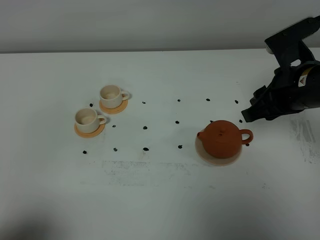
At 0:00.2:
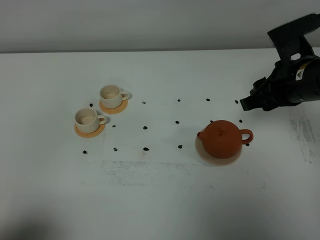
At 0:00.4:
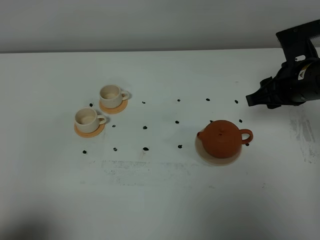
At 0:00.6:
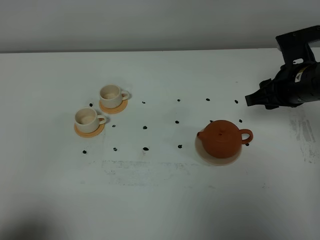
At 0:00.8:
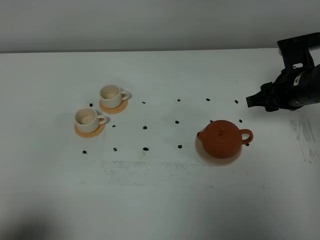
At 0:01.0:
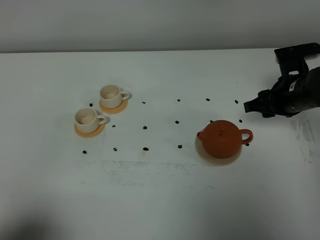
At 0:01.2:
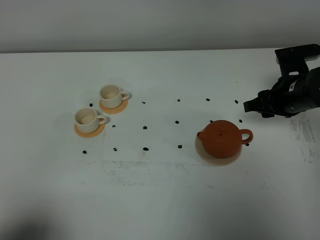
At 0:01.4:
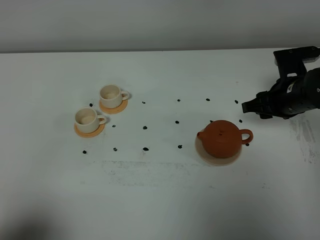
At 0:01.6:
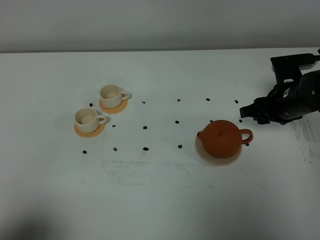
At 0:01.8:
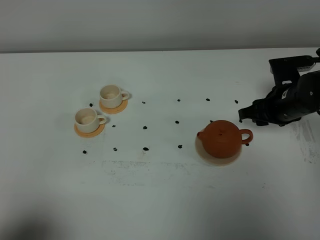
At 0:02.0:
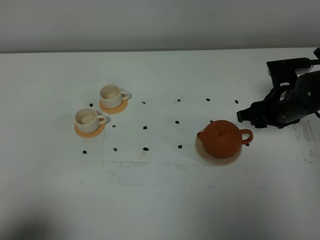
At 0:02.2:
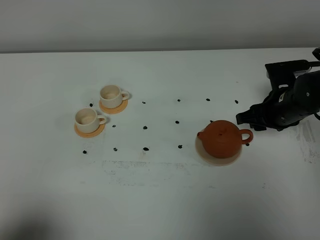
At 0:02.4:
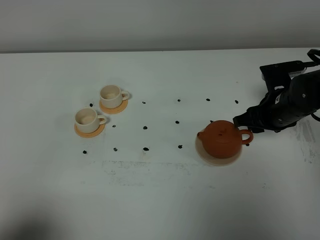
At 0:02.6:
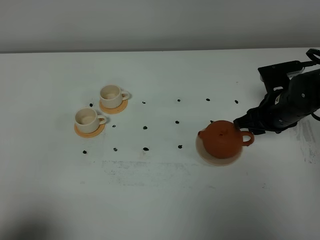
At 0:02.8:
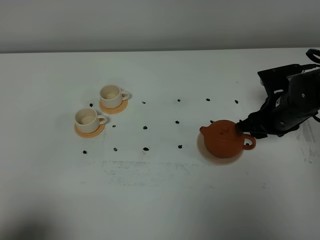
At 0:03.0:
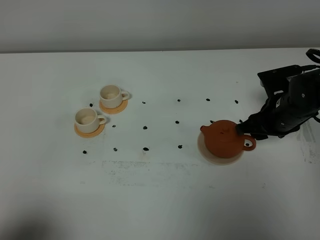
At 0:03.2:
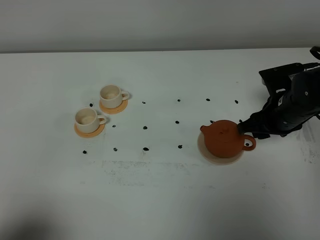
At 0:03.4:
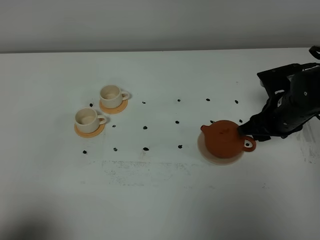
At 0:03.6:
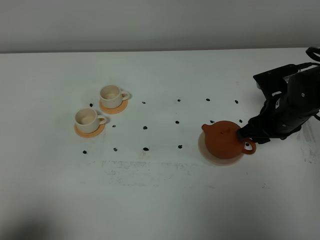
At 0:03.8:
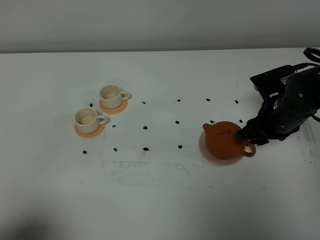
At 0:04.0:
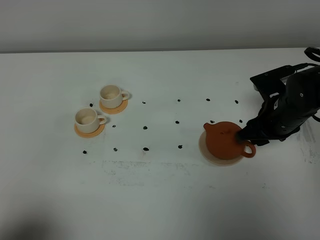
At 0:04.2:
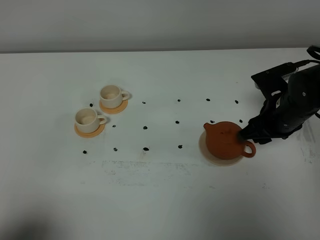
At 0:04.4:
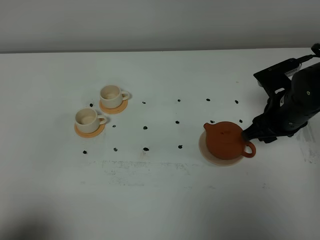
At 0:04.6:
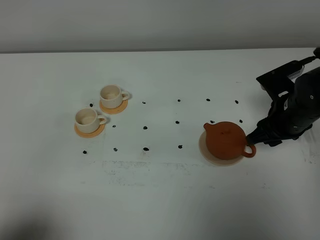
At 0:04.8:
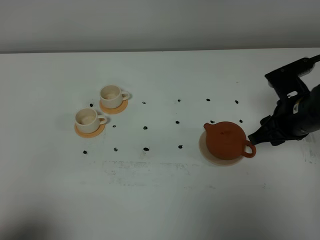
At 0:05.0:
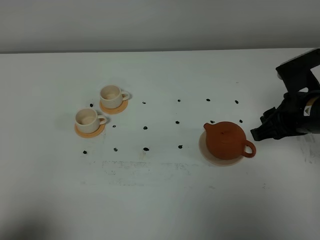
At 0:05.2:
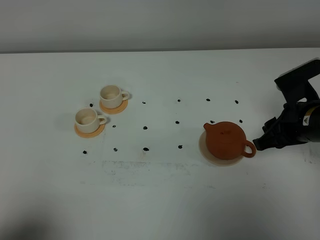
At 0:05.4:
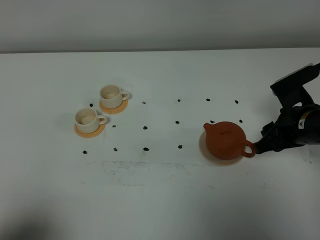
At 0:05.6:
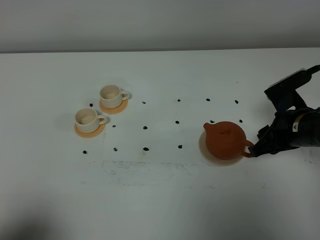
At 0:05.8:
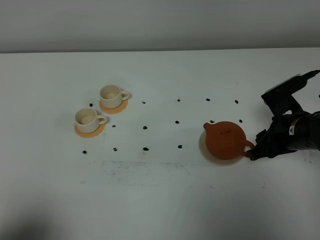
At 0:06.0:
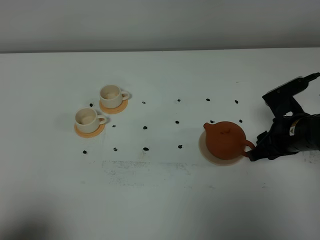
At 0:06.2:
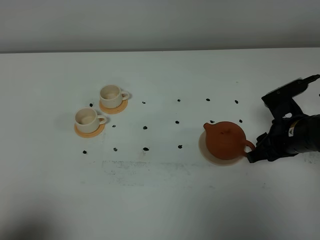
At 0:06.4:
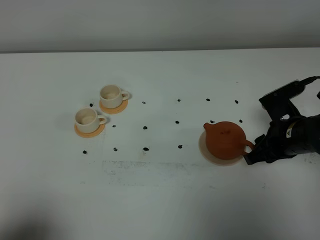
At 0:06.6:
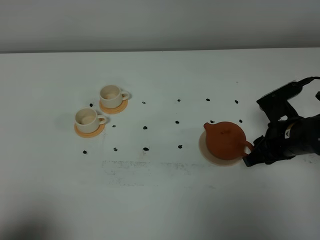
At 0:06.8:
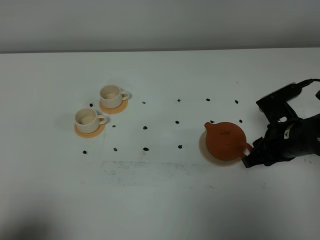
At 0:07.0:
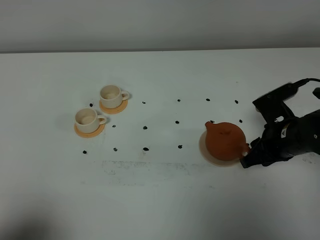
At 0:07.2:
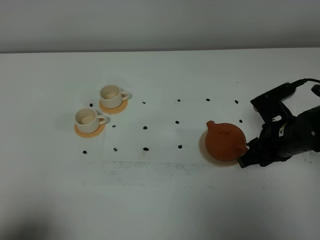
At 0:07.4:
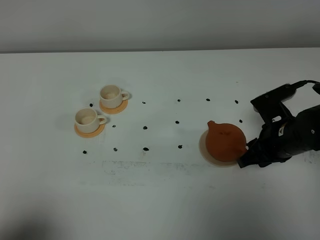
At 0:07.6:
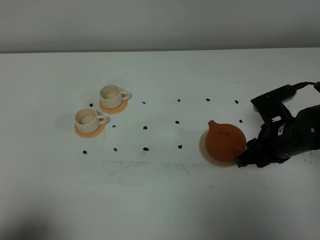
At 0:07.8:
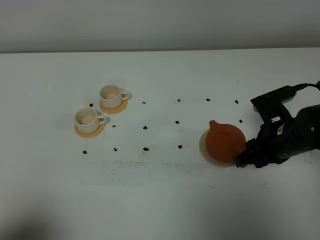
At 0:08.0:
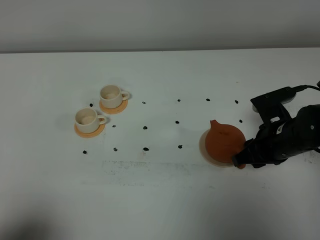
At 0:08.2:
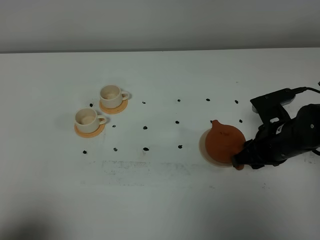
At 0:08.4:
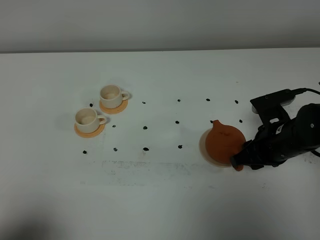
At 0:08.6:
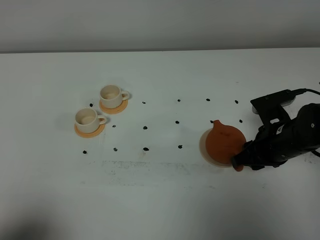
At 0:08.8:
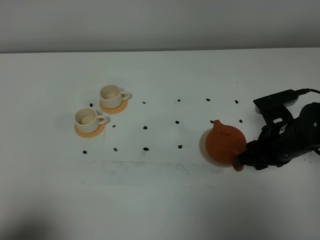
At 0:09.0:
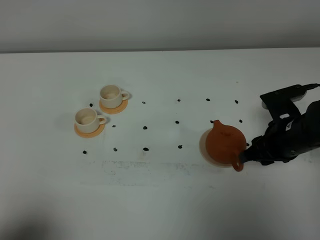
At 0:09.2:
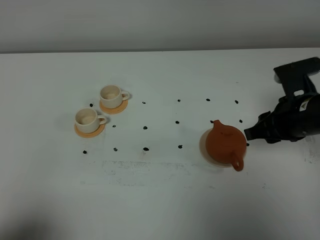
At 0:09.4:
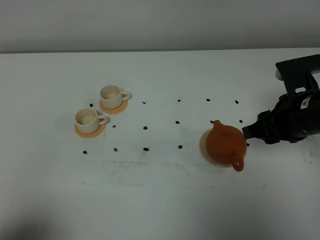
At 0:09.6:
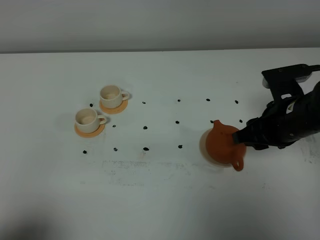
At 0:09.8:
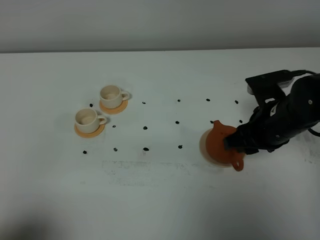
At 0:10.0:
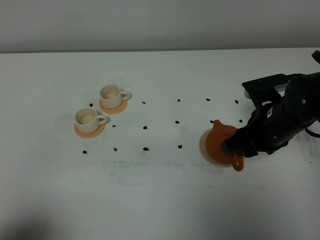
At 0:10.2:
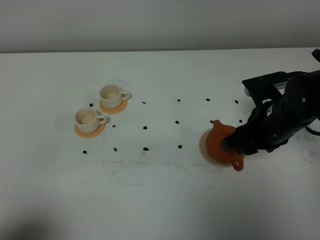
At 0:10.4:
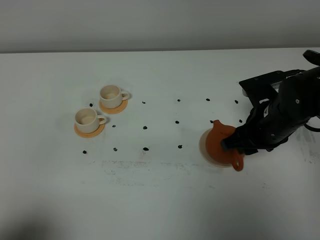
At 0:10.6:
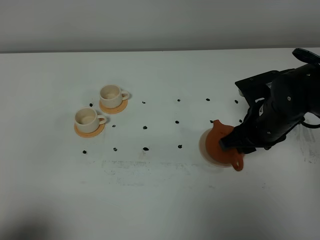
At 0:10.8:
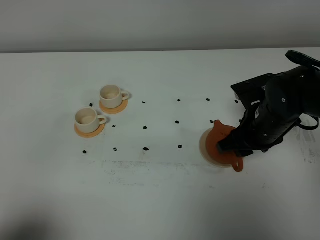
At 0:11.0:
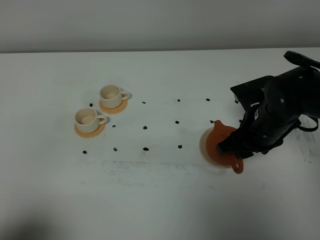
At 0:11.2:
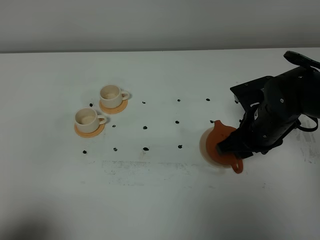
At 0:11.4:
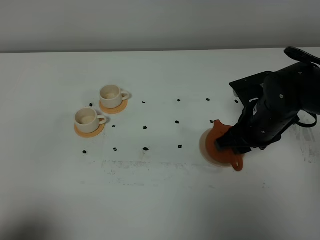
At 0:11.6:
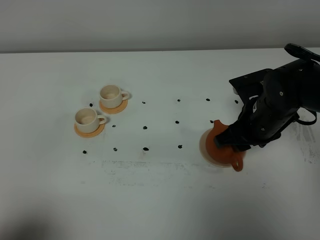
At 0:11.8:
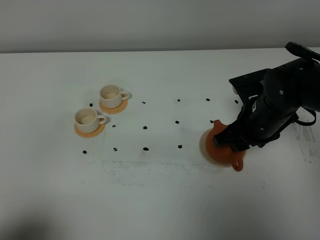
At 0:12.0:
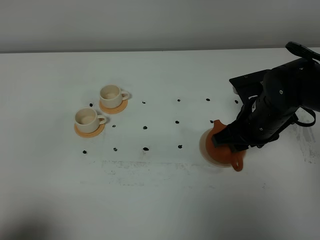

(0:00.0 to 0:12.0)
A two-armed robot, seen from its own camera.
Task of the whole recording: grasp the brown teapot and pour the tea into the two white teacups one by one, put the brown teapot back in its original place.
0:00.0 - 0:01.6: The right gripper is displaced downward and forward by approximately 10 cm.
0:01.6 - 0:04.4: The grippers stay close to where they were, moving slightly.
0:04.4 - 0:06.0: The right gripper shifts by approximately 5 cm.
0:06.0 - 0:09.0: The grippers move only a little.
0:10.4 - 0:12.0: The grippers move only a little.

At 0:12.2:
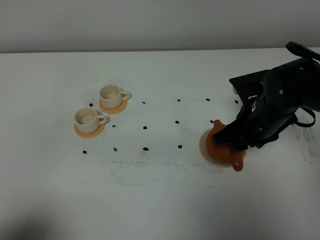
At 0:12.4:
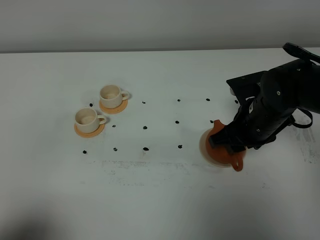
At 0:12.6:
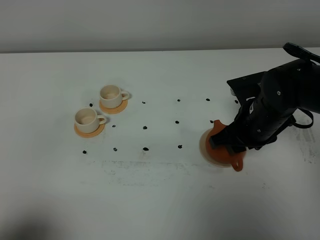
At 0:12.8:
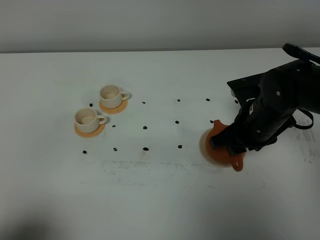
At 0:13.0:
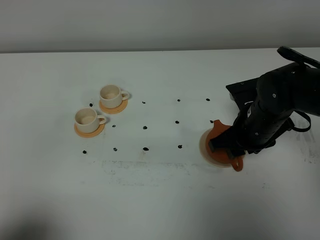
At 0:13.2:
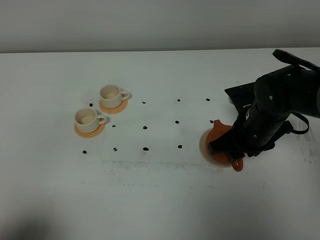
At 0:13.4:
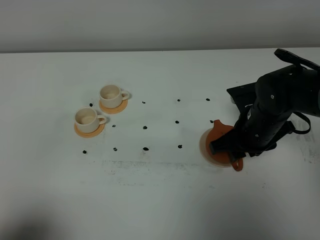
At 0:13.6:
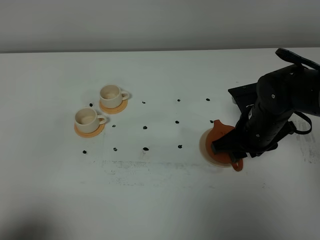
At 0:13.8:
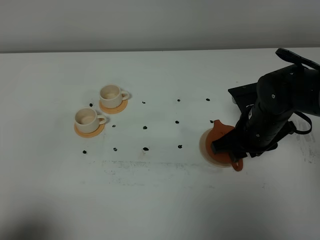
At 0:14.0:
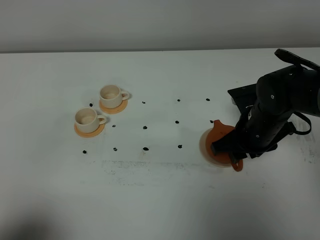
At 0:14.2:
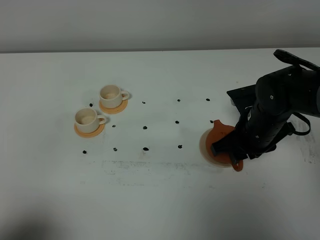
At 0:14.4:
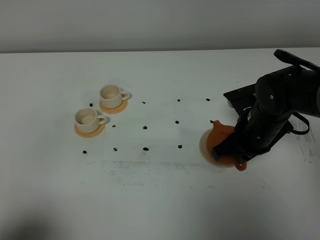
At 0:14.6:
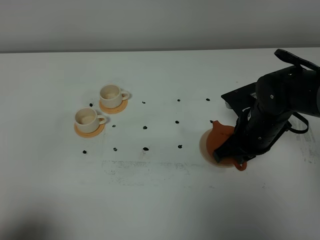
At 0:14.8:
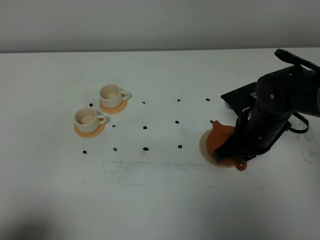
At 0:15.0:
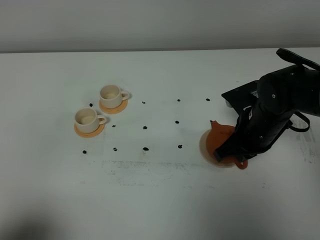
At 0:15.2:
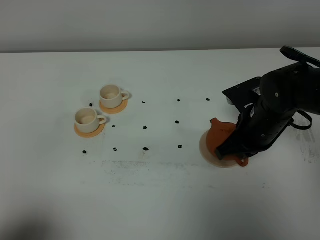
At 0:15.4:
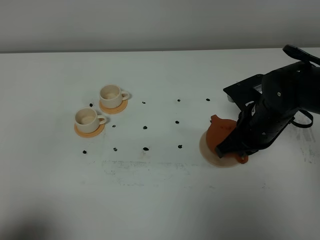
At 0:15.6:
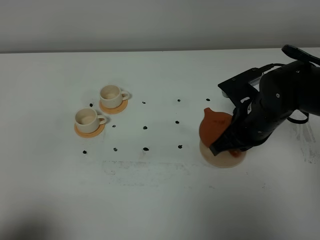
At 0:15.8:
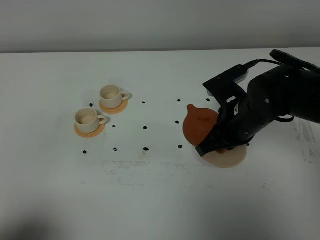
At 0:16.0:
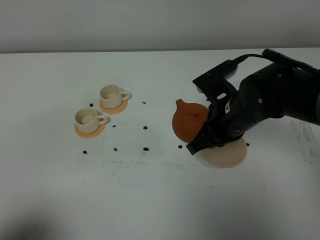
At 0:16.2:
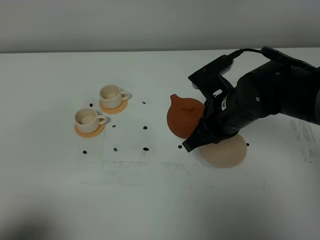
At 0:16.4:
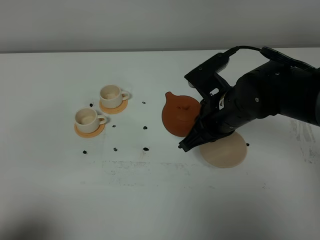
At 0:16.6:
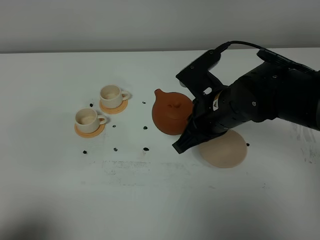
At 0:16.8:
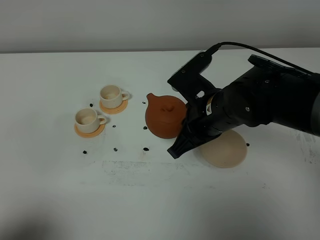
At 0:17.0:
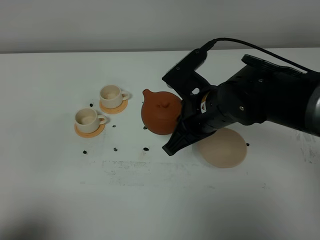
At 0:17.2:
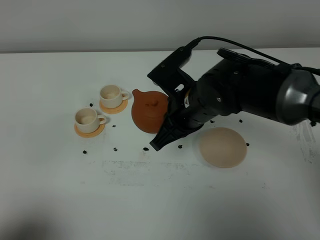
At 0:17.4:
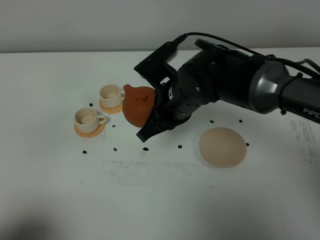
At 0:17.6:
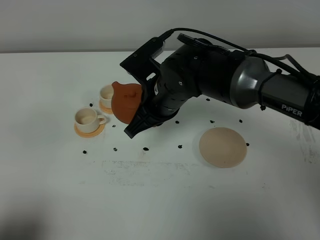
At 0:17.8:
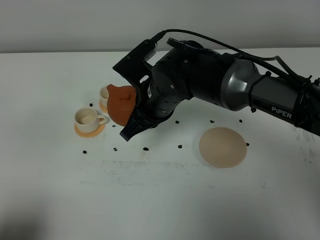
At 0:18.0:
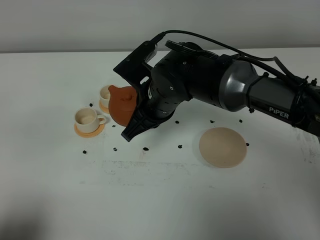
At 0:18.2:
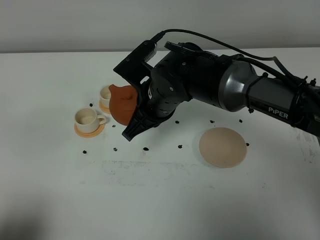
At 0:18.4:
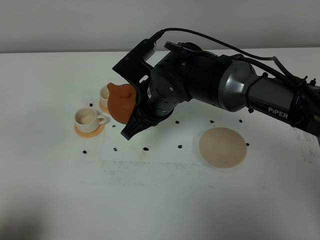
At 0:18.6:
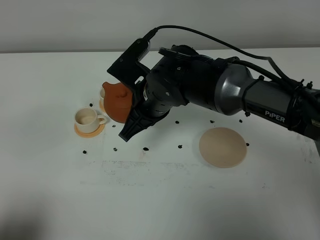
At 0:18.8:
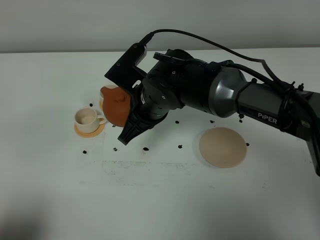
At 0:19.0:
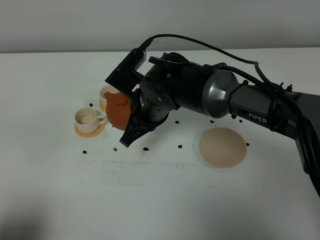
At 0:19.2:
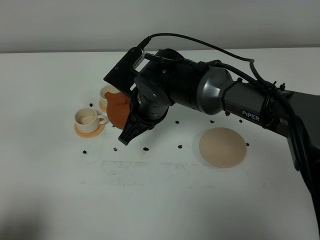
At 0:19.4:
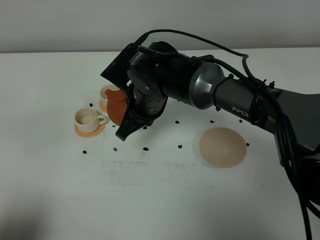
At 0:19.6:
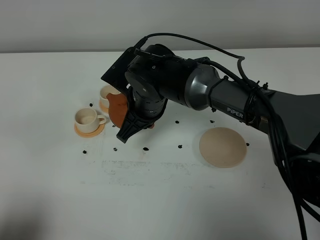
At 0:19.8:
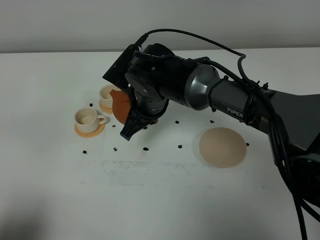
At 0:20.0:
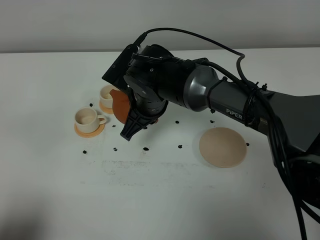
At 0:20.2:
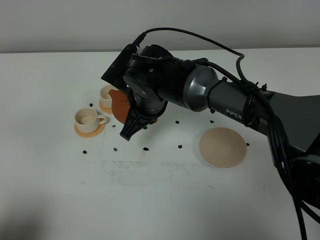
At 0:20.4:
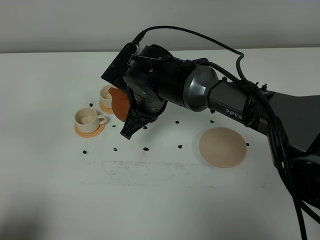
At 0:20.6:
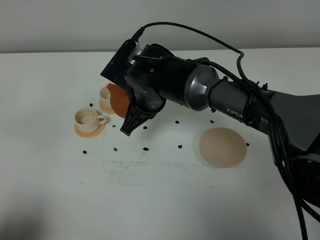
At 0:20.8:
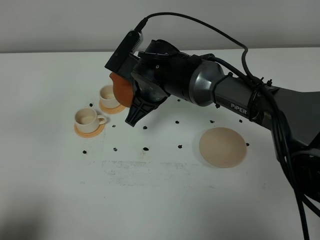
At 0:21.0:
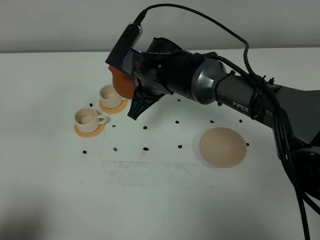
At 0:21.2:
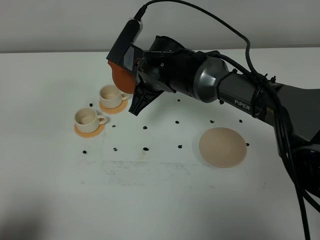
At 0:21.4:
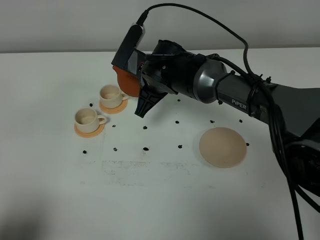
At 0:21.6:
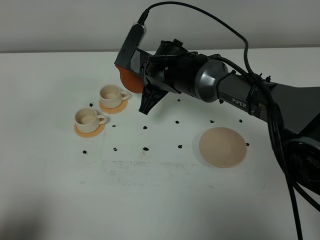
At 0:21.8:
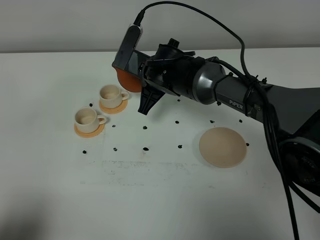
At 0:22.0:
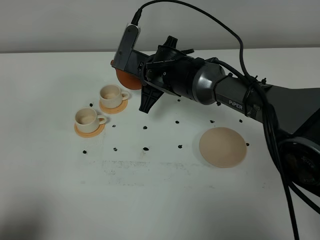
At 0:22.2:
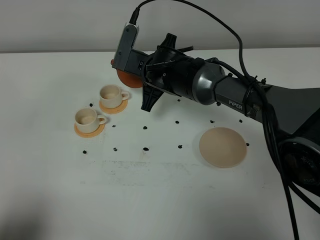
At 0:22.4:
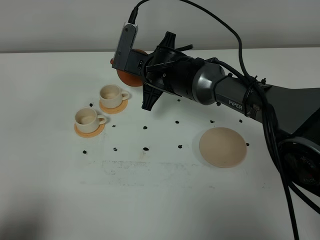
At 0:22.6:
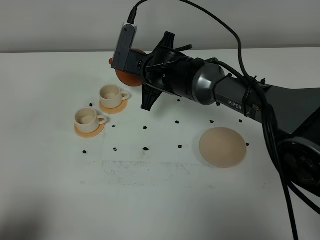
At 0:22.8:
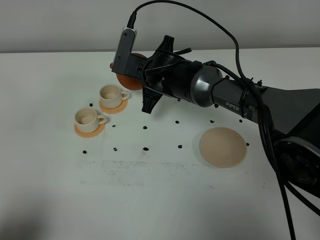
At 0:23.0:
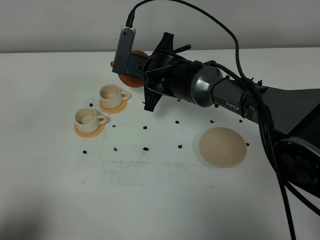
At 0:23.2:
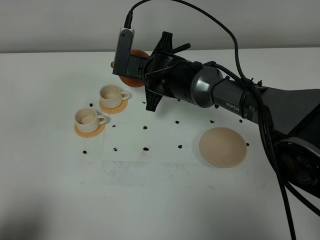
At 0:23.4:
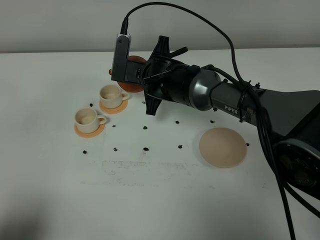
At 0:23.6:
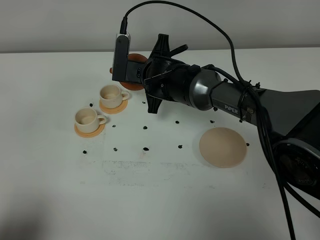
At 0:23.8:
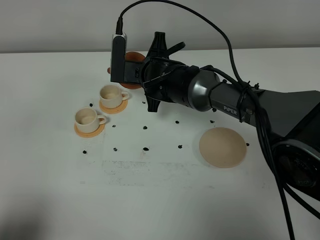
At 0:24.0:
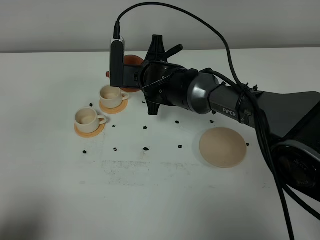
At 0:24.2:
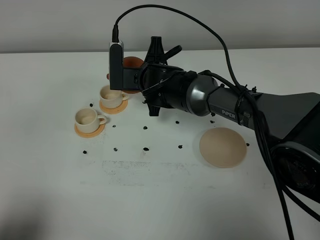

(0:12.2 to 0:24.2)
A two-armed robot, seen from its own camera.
Task of the whole recording: grasp the brown teapot and pour the tea into the two white teacups one by one, put the brown teapot back in its original place.
Step, 0:12.2 - 0:15.4: Pick up the teapot with the right gripper.
0:12.2 - 0:13.8: The grippers stay close to where they were, moving slightly.
0:13.8 - 0:15.2: The right gripper closes.
0:15.2 - 0:16.6: The right gripper goes some 10 cm to the left.
0:16.6 - 0:18.2: The right gripper is displaced to the left by approximately 10 cm.
0:18.2 - 0:19.8: The grippers stay close to where they were, moving slightly.
0:19.8 - 0:21.2: The grippers make only small movements.
0:21.2 - 0:22.6: The grippers make only small movements.
0:22.6 - 0:24.2: There are only small adjustments of the grippers.
